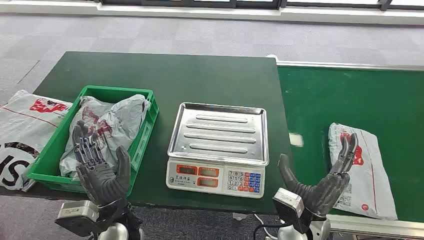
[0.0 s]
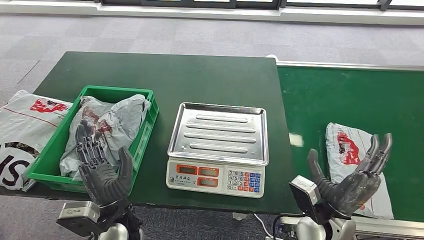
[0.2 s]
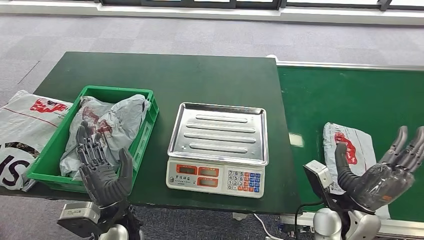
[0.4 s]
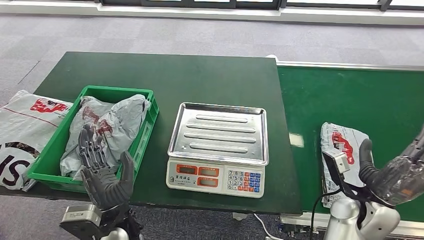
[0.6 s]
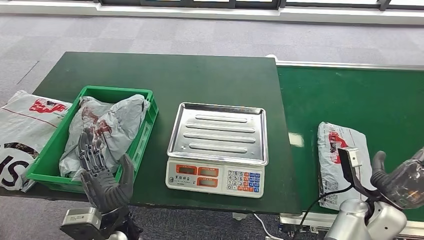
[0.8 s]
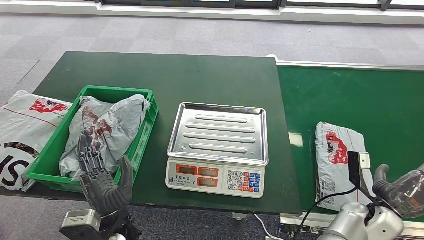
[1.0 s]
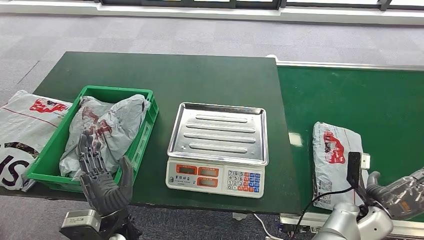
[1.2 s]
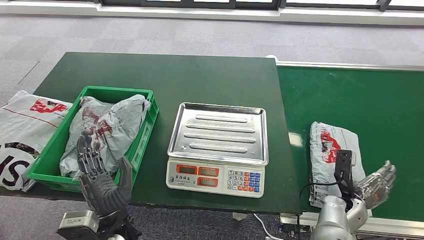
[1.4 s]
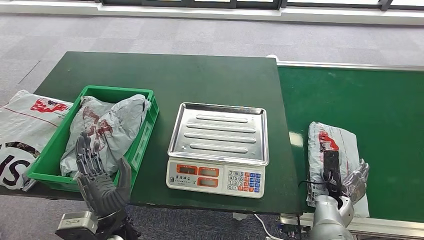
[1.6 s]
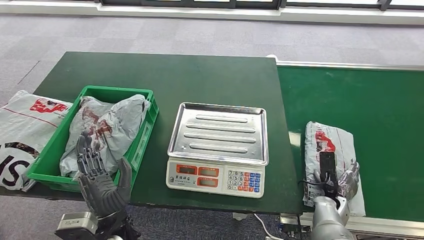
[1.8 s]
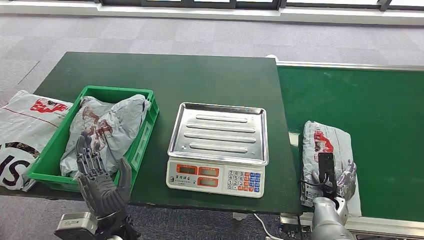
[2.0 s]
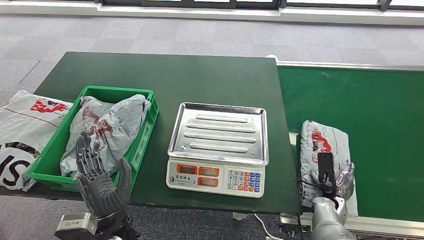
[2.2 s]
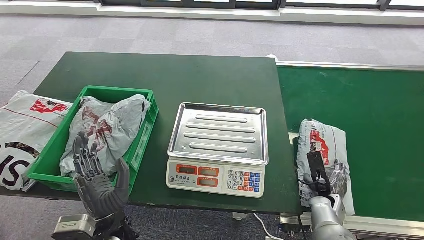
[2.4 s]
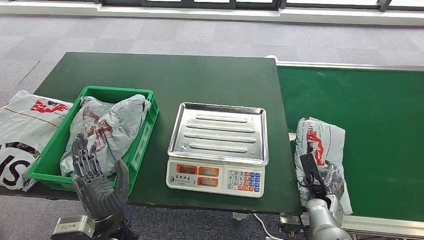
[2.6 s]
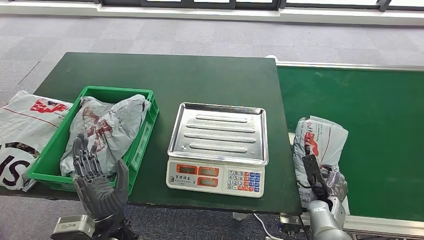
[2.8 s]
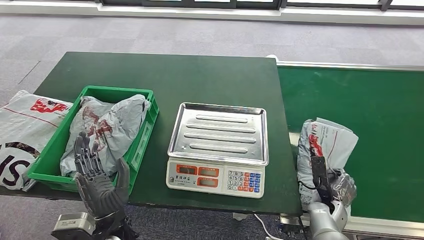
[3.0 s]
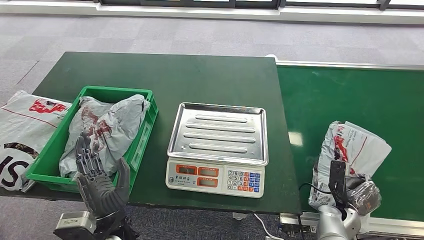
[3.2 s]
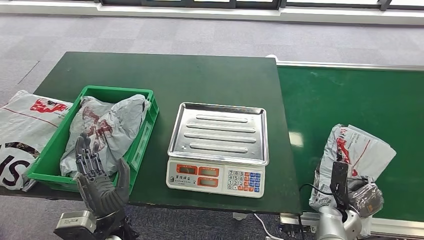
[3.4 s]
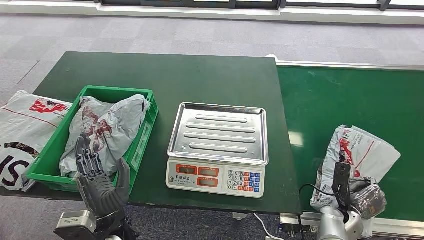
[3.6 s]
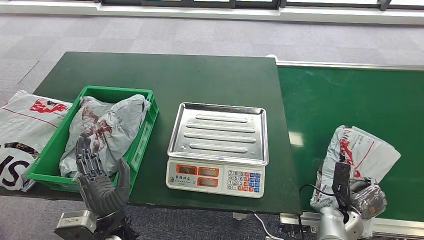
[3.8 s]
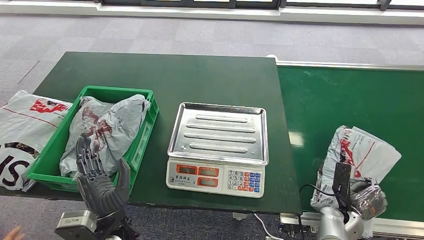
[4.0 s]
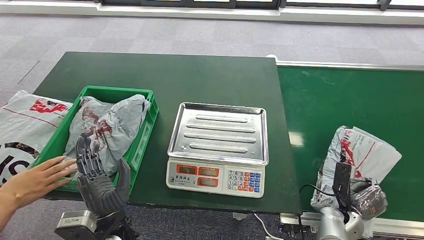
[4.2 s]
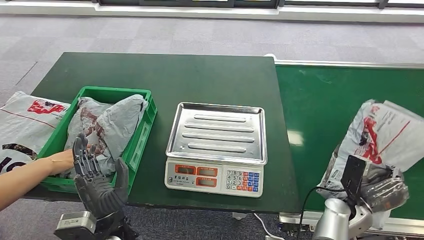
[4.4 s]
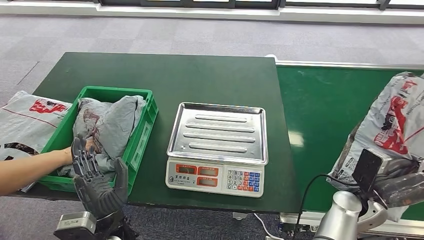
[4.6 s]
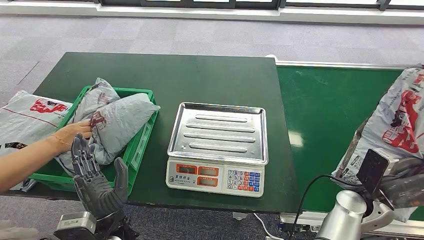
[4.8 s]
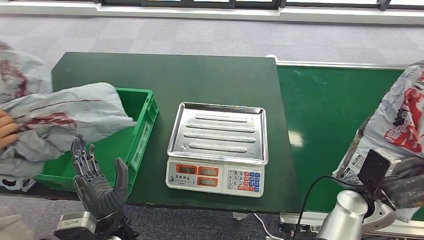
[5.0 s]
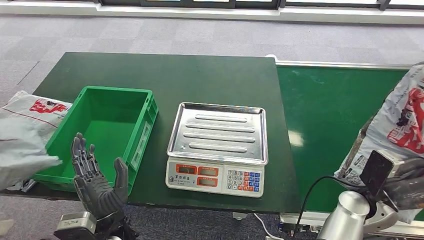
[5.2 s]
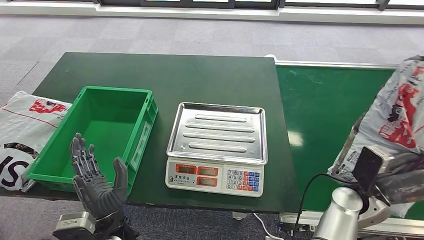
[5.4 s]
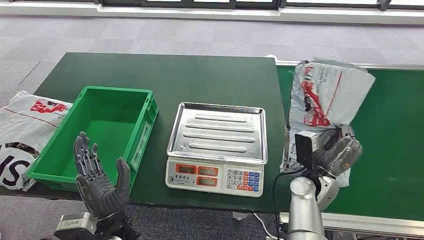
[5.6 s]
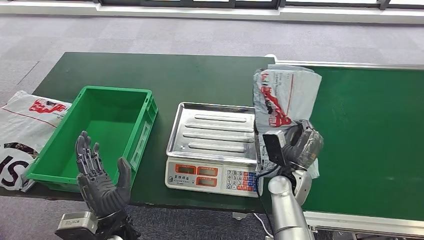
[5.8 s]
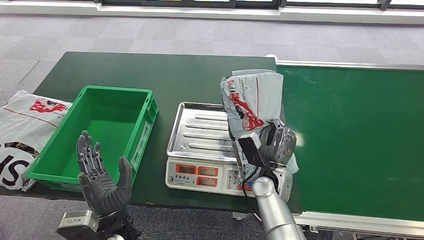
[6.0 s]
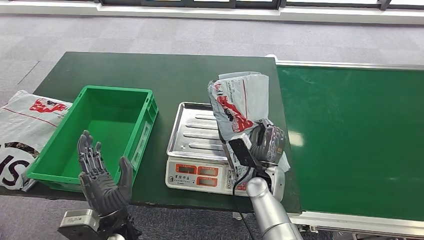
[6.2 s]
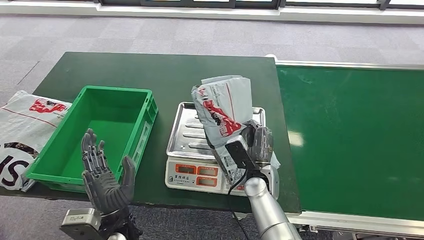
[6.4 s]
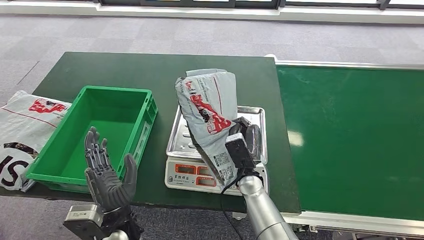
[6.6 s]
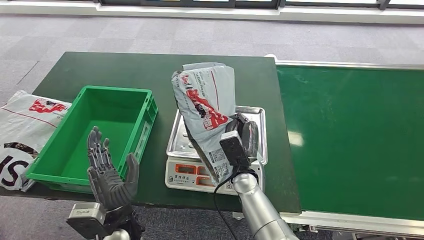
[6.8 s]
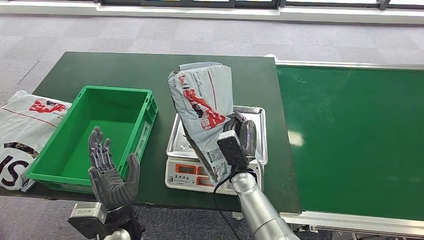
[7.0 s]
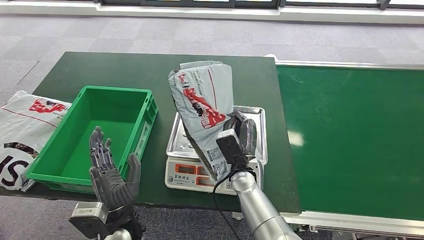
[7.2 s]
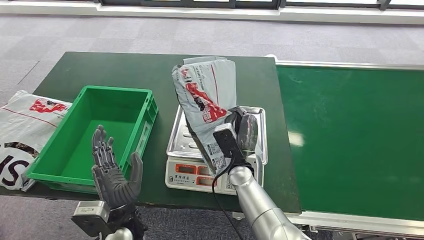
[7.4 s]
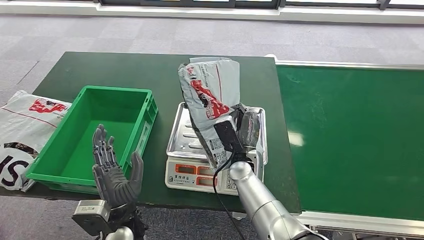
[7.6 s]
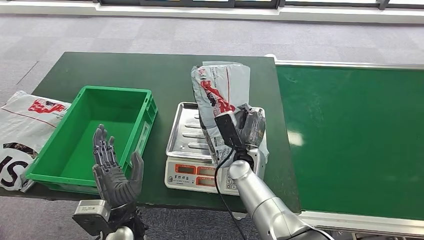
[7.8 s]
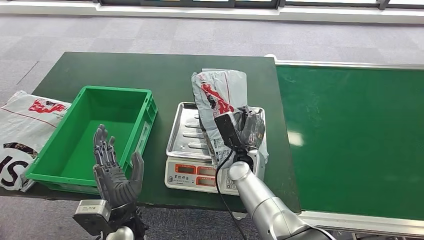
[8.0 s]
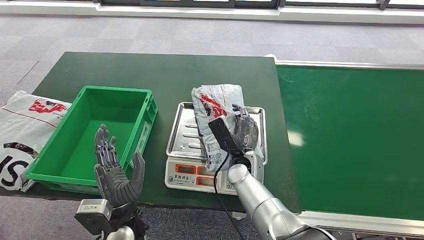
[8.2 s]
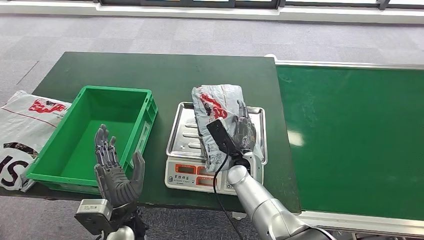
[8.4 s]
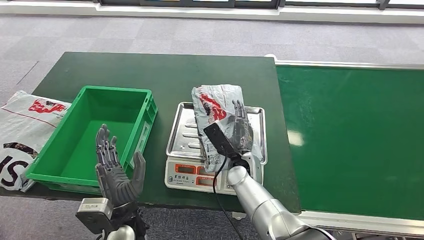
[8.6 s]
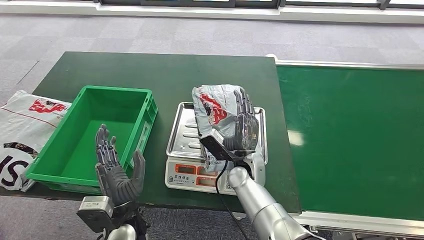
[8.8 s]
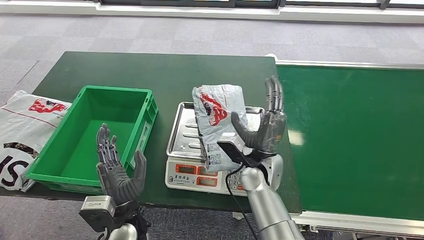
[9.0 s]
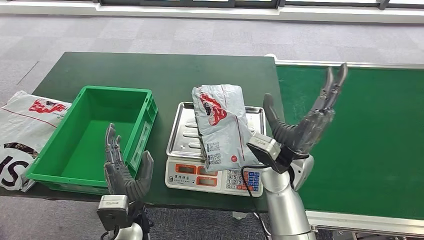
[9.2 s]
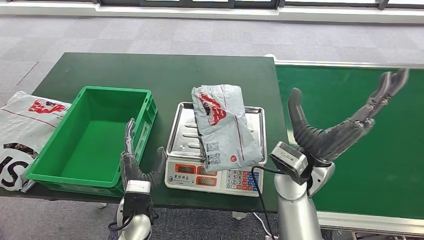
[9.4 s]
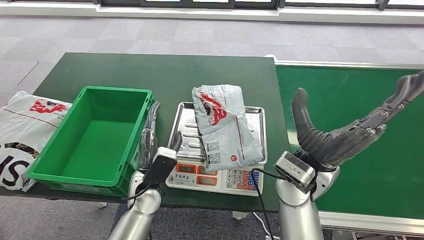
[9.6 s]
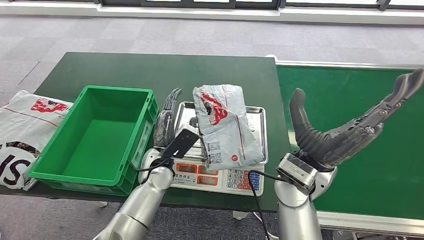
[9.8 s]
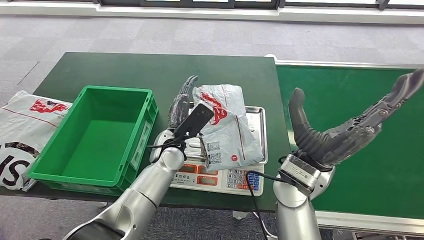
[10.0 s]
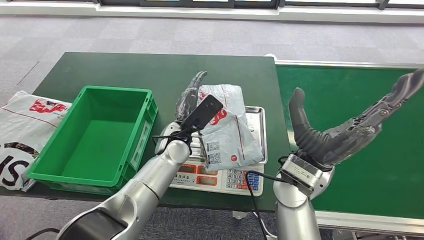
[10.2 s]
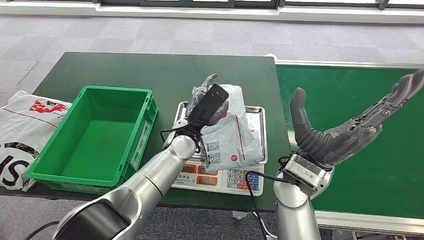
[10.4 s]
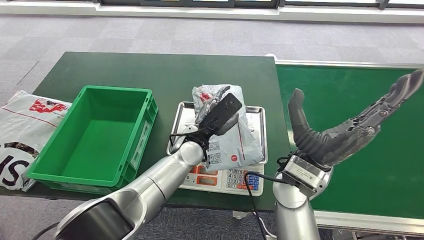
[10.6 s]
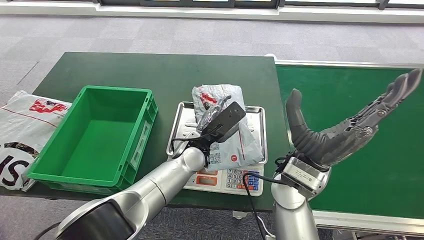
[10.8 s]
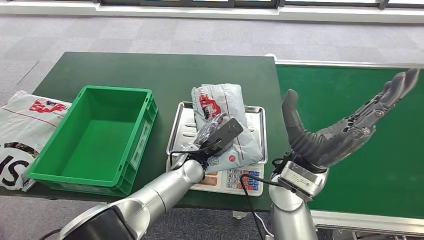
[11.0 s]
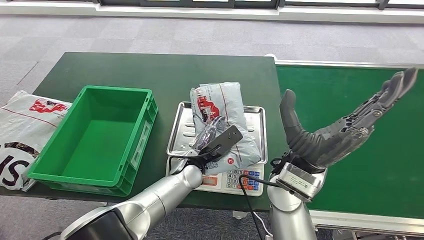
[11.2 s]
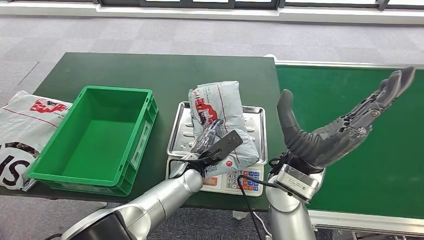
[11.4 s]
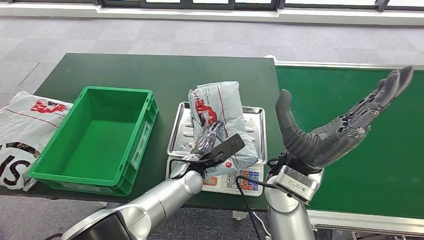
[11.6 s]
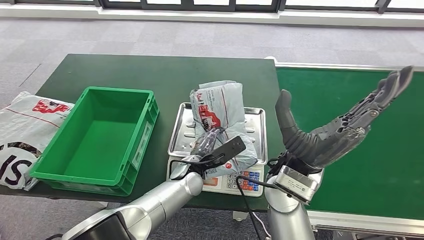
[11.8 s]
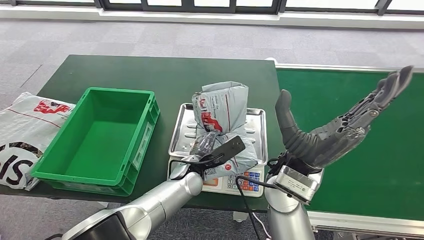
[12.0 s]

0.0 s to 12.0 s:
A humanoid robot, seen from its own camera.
Step, 0.0 to 5.0 s: Pick up the package from the conveyor belt.
Step, 5.2 to 9.2 s: Place the package onto the inbound machine.
6.0 to 7.6 s: The right hand heads to the left, covering approximately 5 cm.

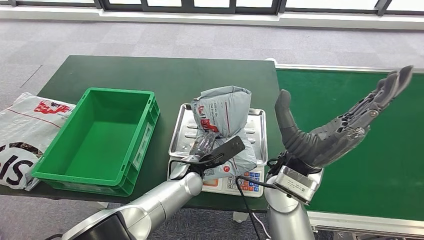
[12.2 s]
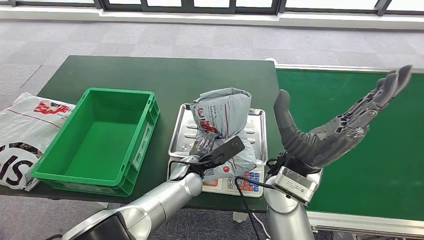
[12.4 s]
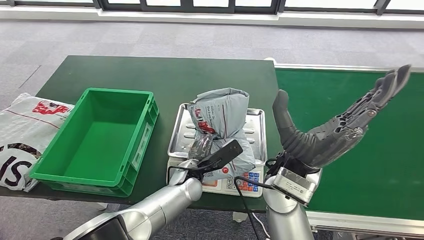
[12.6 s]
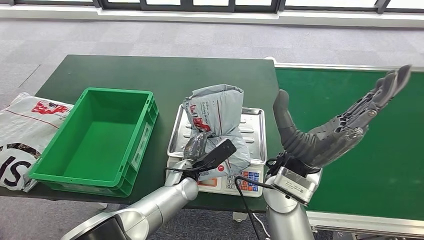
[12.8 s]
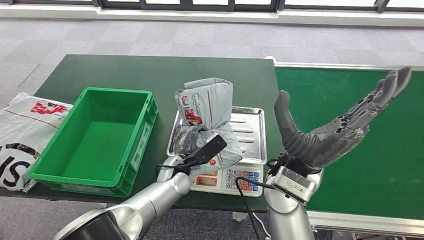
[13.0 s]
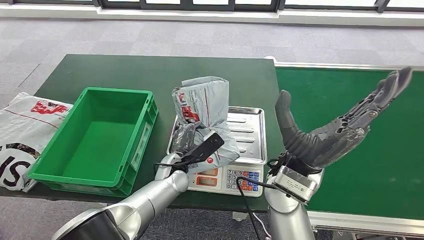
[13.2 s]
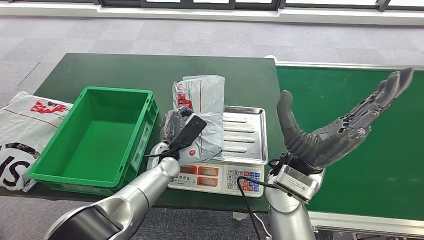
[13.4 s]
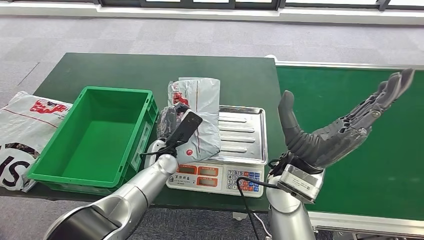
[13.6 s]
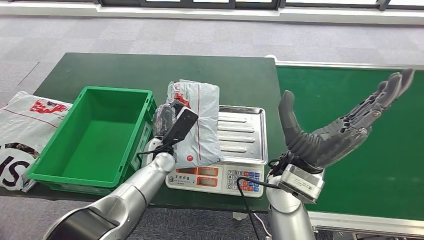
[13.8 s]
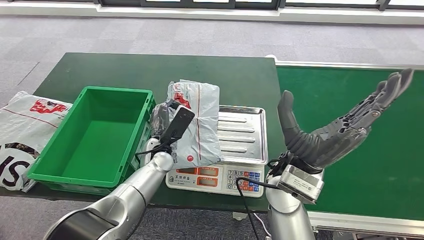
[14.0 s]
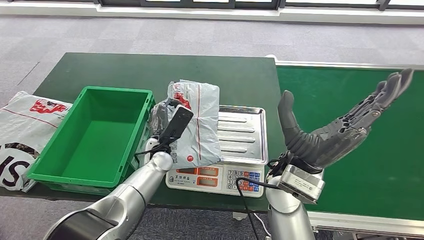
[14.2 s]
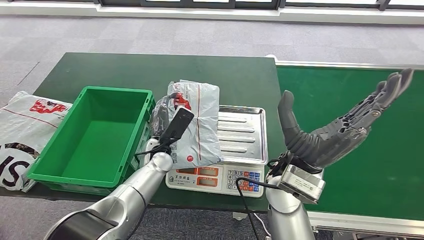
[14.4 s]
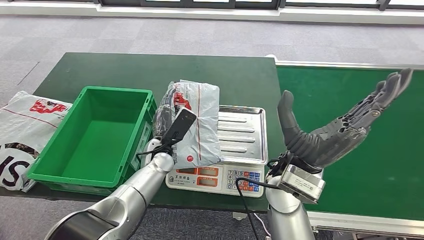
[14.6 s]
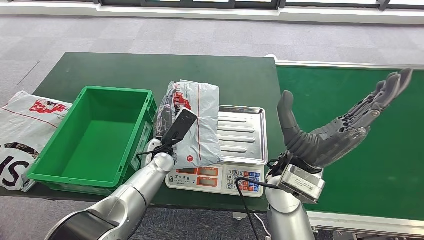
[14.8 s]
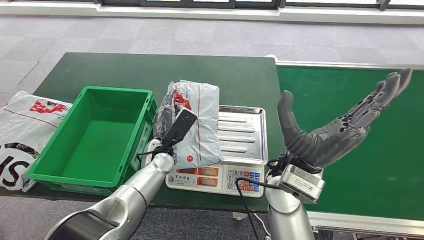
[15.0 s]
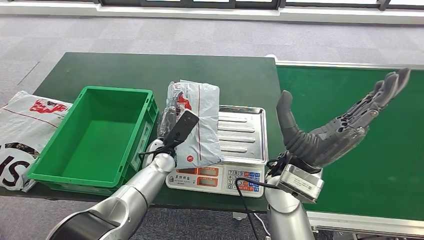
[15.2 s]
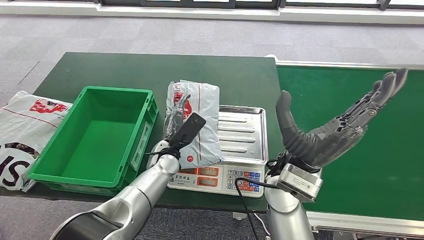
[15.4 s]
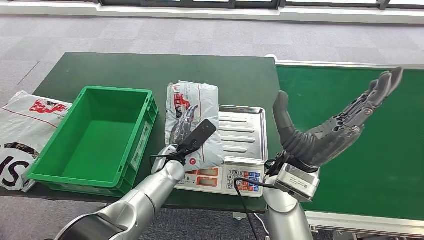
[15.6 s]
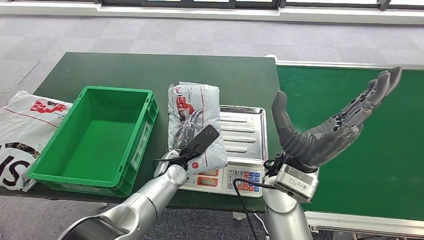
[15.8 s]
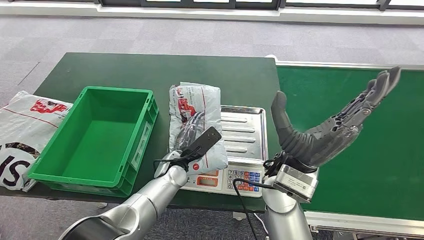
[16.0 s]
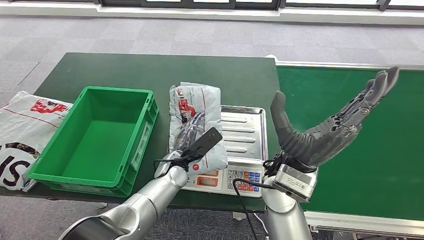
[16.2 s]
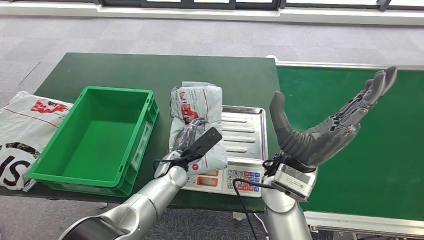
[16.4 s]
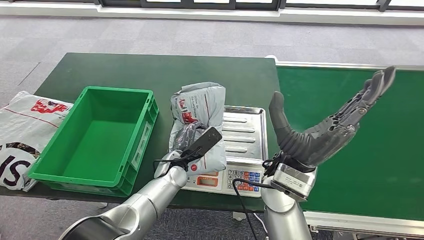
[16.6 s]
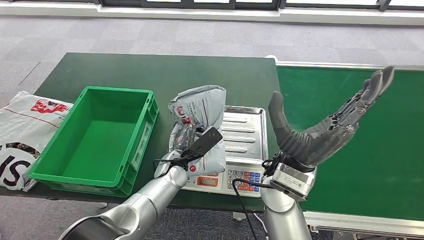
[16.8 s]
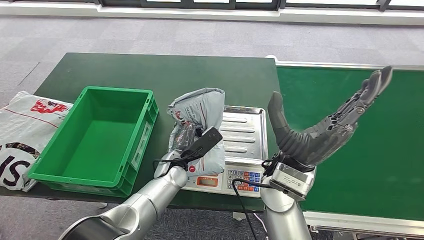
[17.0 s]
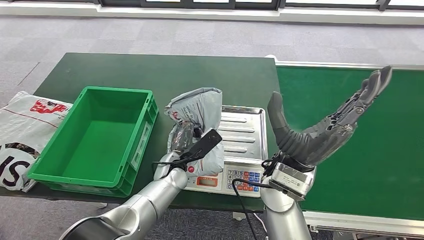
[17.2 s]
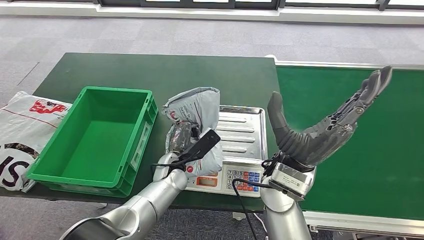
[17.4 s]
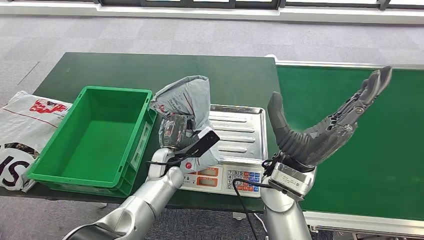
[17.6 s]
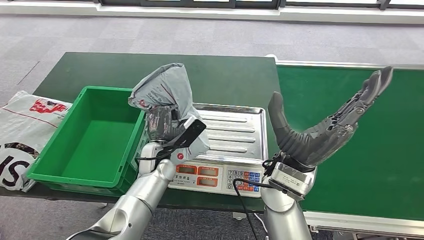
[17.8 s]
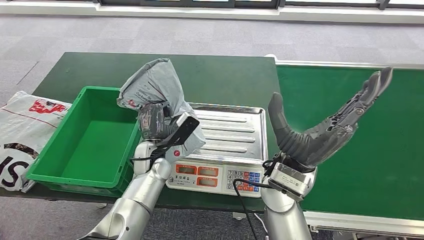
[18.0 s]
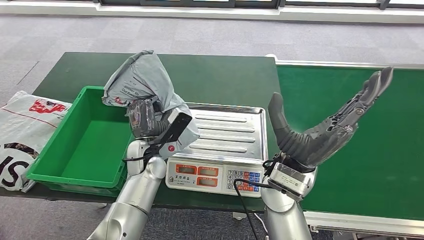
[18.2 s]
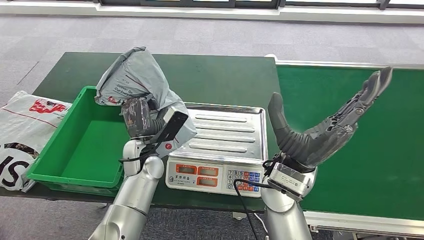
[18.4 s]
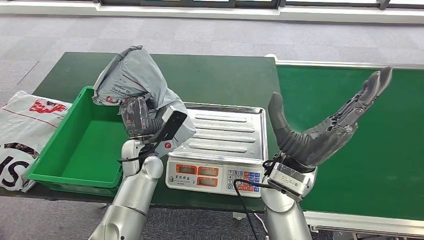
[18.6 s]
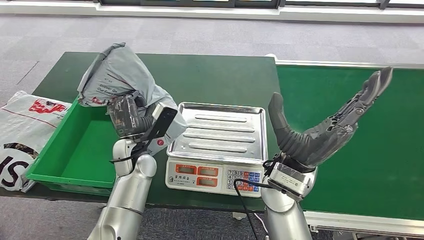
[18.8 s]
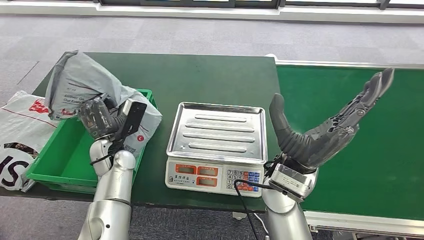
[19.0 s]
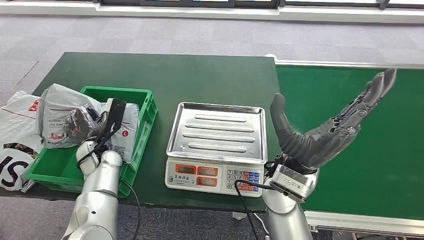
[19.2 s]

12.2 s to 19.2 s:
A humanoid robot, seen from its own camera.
Step, 14.2 to 18.4 s: Pick up the package from the inbound machine.
13.6 to 15.0 s: Both hands stay about where they are.
15.0 to 16.4 s: The left hand changes place by roughly 5 cm.
17.8 to 19.2 s: The left hand moves to the left, about 15 cm.
